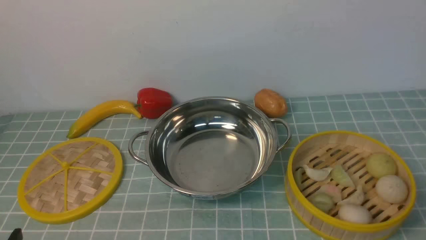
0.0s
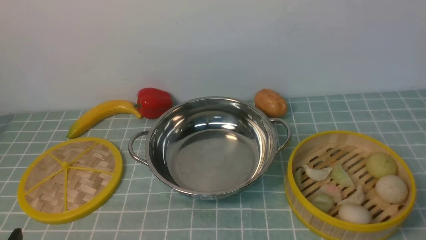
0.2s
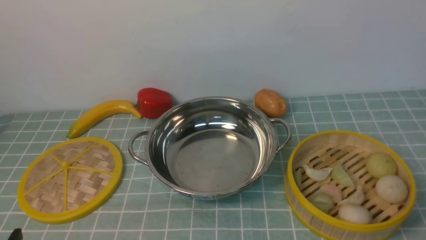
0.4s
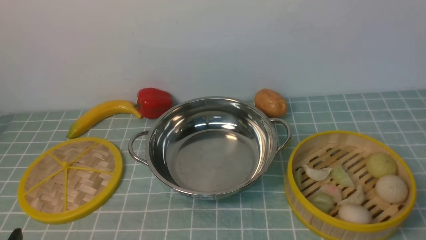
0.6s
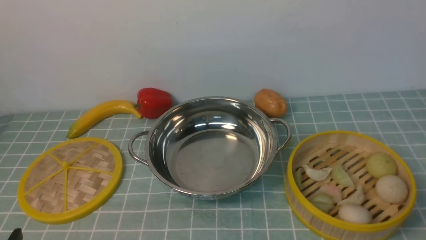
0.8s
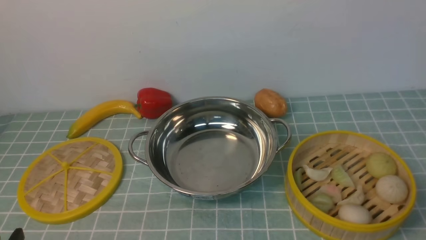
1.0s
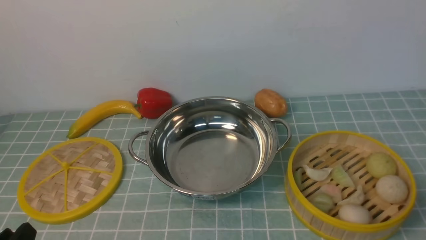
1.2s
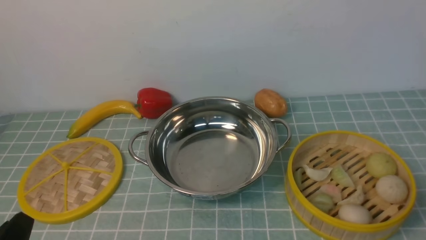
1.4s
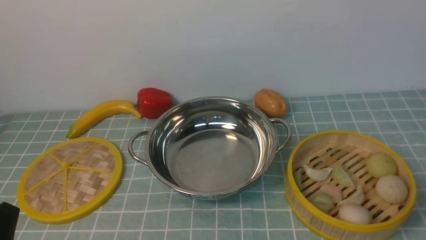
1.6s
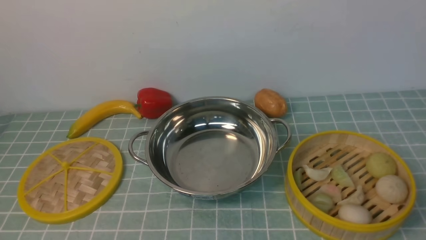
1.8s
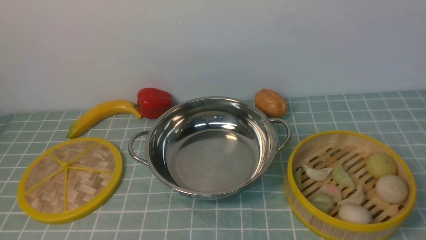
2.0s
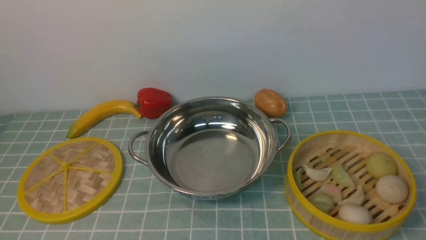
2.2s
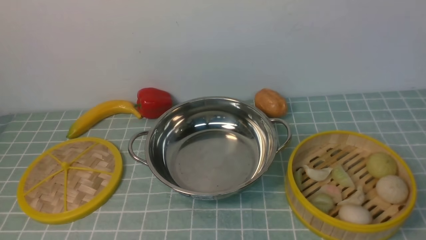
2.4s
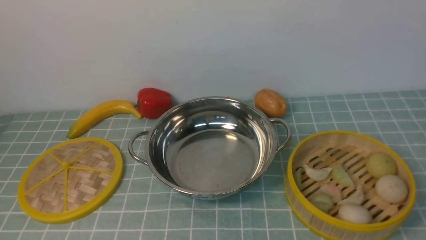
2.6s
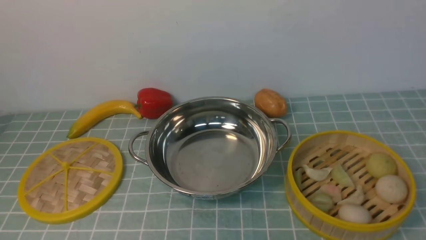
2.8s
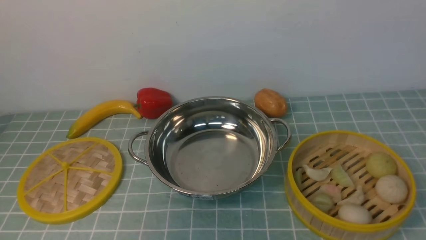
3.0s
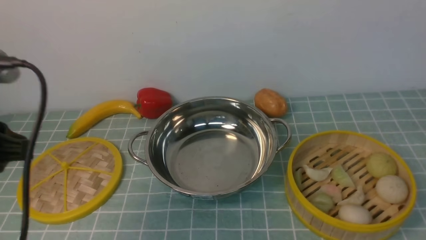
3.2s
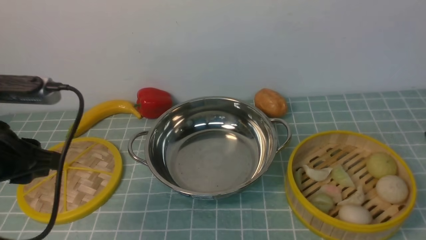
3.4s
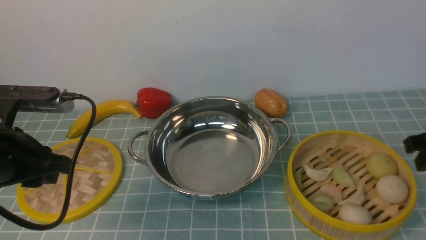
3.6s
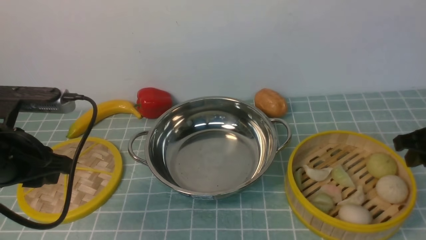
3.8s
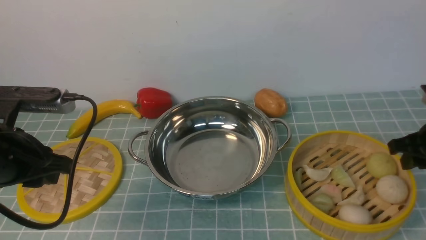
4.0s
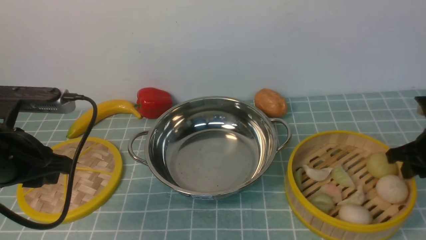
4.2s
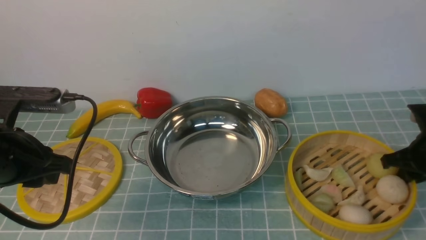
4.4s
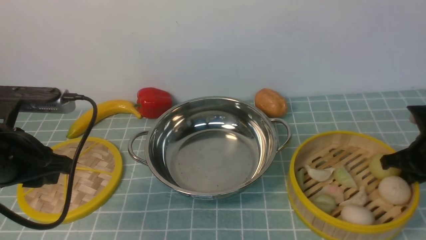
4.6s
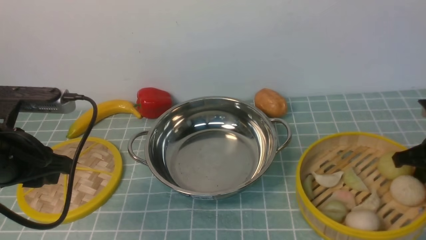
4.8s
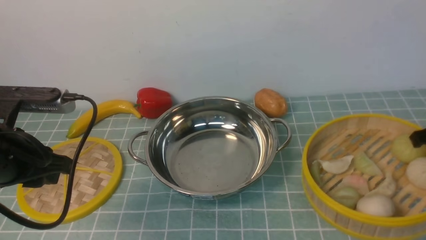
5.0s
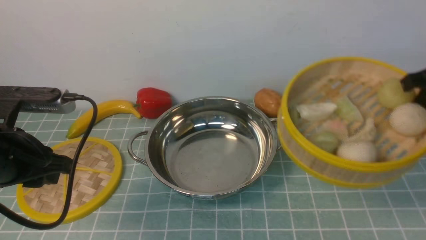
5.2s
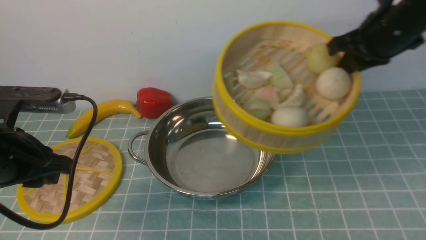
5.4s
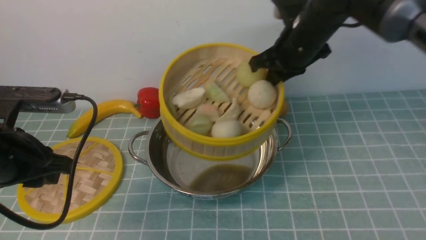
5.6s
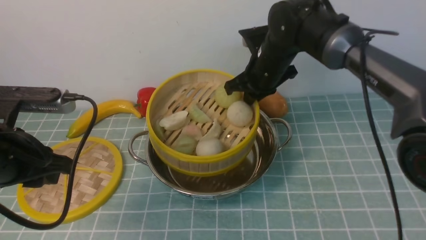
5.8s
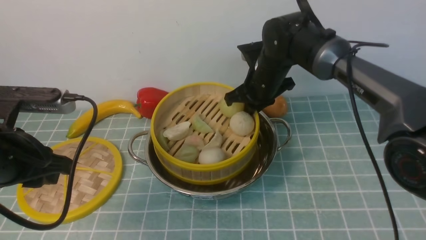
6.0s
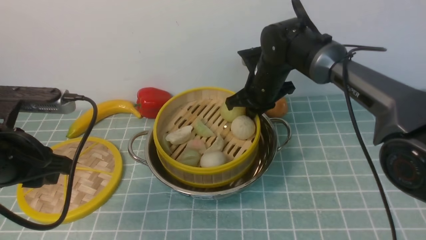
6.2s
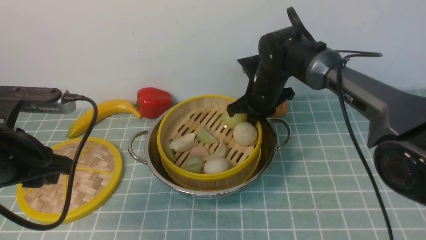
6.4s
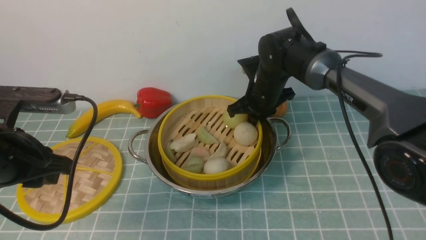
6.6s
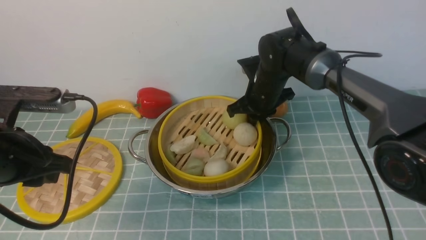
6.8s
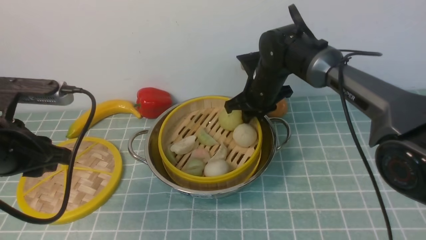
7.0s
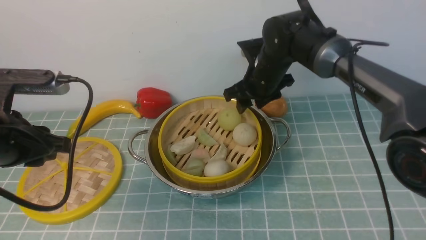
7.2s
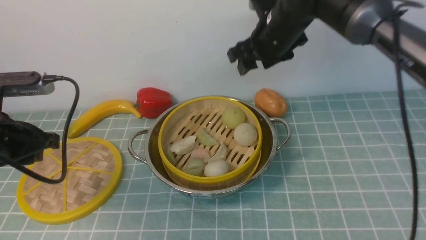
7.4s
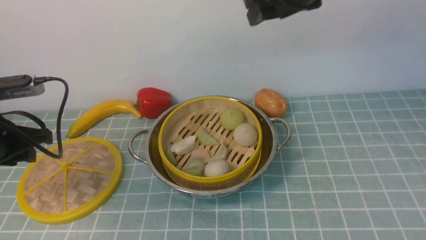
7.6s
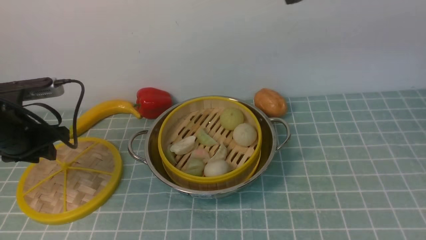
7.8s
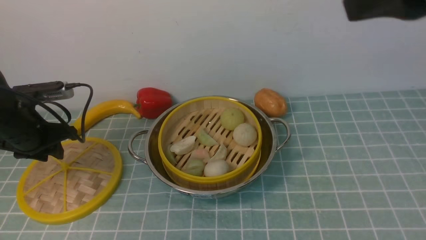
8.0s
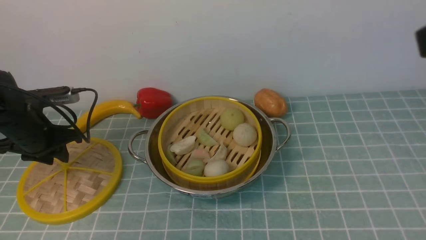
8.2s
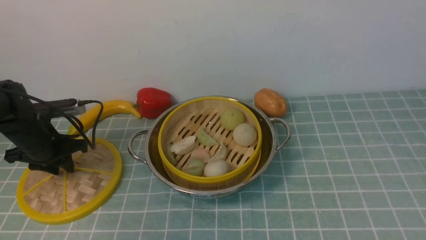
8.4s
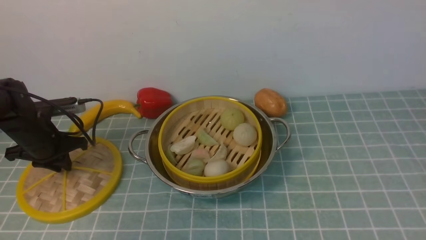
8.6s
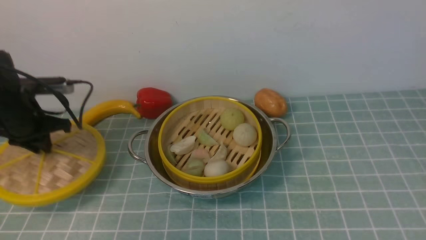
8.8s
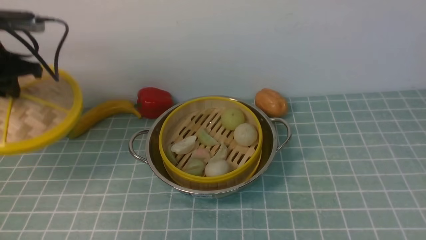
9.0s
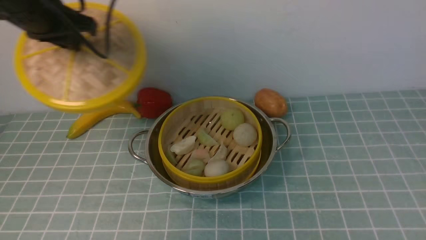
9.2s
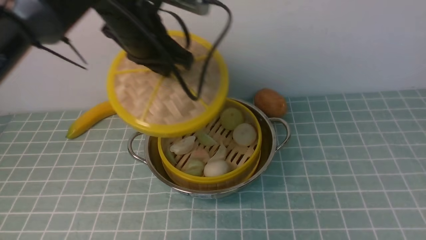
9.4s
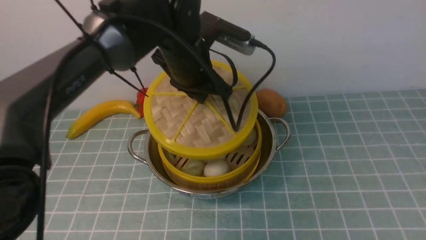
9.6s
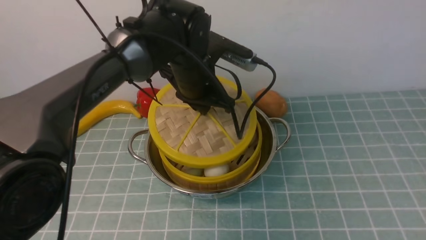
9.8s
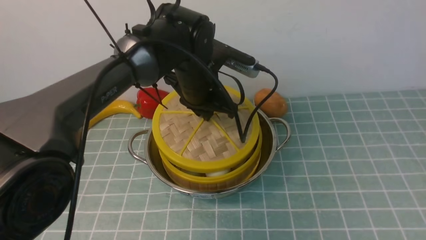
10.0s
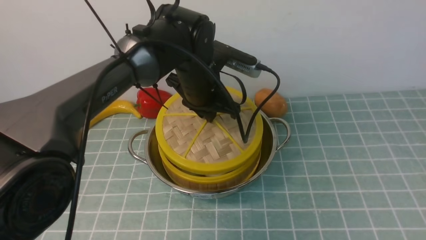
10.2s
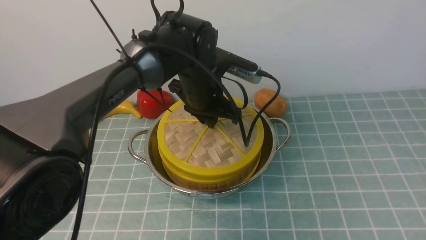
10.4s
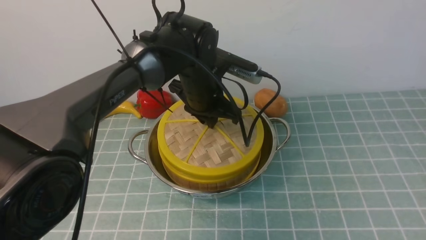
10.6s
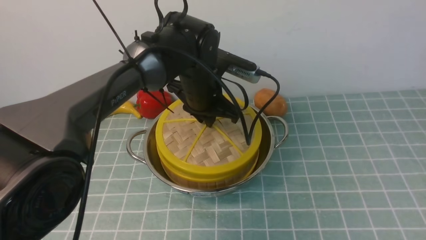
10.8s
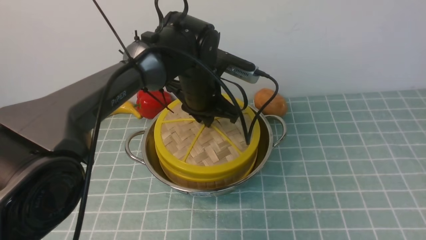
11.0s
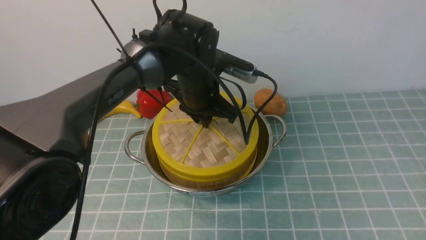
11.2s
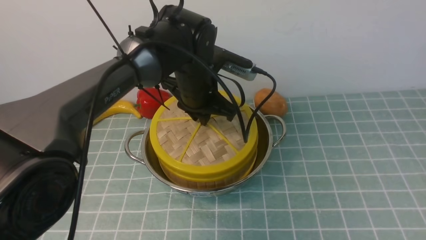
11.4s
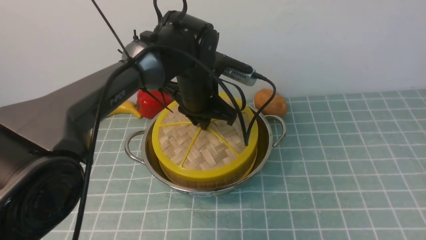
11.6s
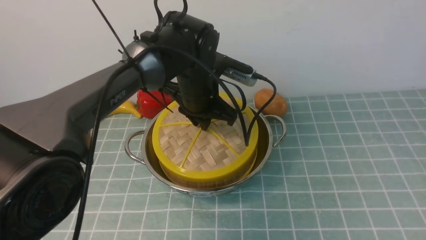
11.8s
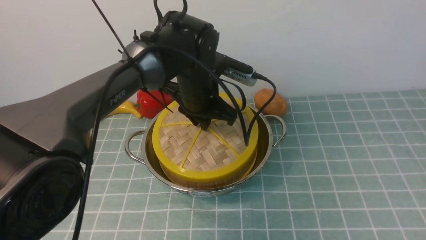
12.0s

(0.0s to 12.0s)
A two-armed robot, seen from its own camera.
Task of the whole recording: place the steamer in the pot on the blue tablecloth, and put the lid on the steamer.
Step, 0.0s - 5.0s: use the right arm to lift the steamer closest to it.
Step, 5.2s - 7.8s: use the right arm to put the steamer into the iron steamer pot in the middle.
Step, 8.0s - 8.8s: use the left arm to lift the lid of the steamer.
1.6s - 3.0s: The left gripper goes approximately 20 cm upward.
3.0s - 4.4s: The left gripper heads forward and downward, covering some 20 cm. Meanwhile the right gripper is displaced downward and forward by about 30 cm.
4.4s - 6.0s: The right gripper heads to the left and forward, covering roughly 30 cm.
6.0s - 7.6s: The right gripper moves upward, about 15 cm, and opens. Meanwhile the left gripper travels forward by roughly 5 cm.
7.6s - 9.0s: The right gripper shifts approximately 35 cm backward and to the right. The left gripper goes about 10 cm forward, and moves some 10 cm downward and comes back.
9.0s - 10.4s: The left gripper is displaced to the right by about 30 cm.
10.4s - 12.0s: The grippers move only a little.

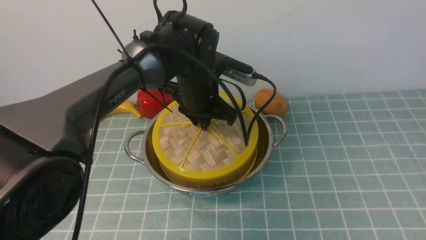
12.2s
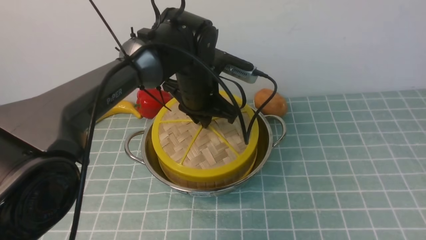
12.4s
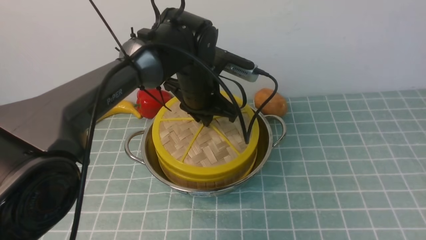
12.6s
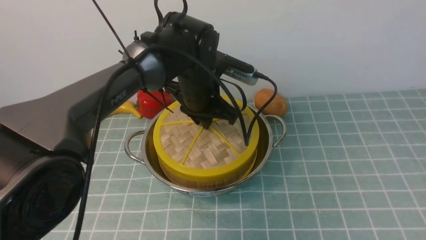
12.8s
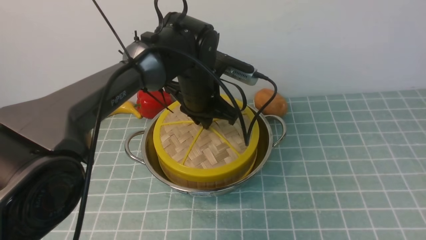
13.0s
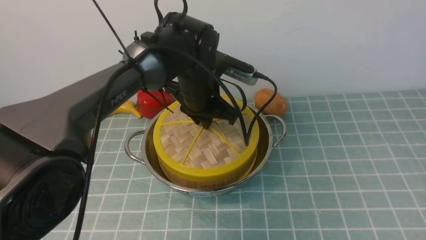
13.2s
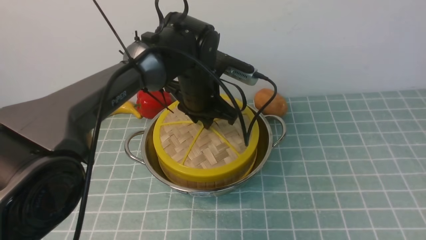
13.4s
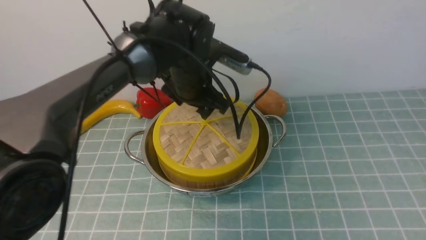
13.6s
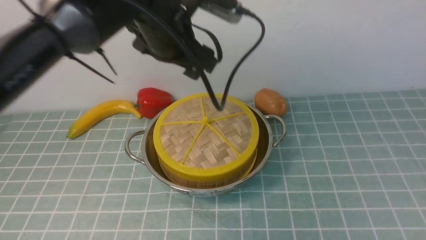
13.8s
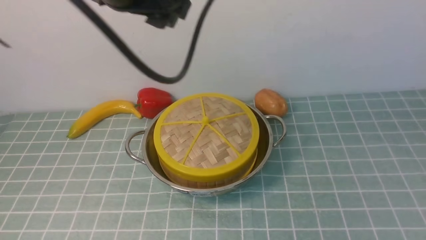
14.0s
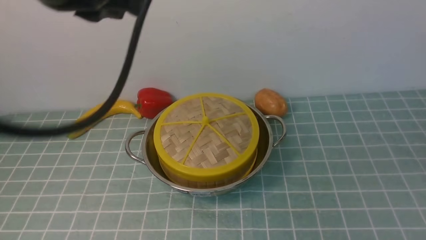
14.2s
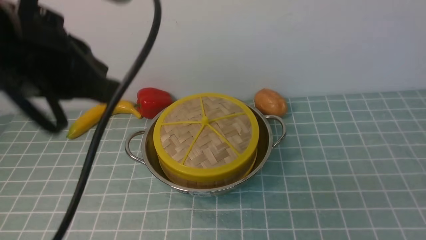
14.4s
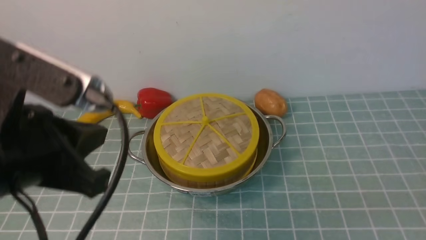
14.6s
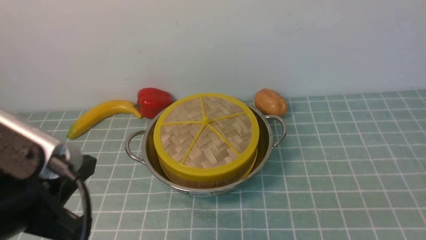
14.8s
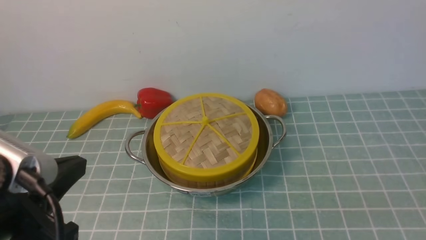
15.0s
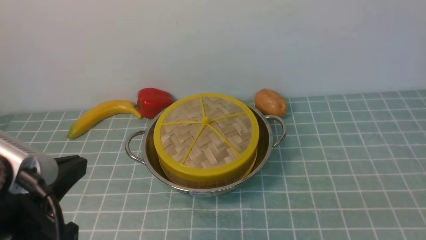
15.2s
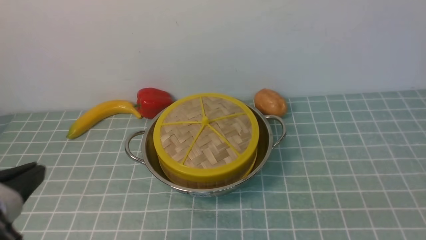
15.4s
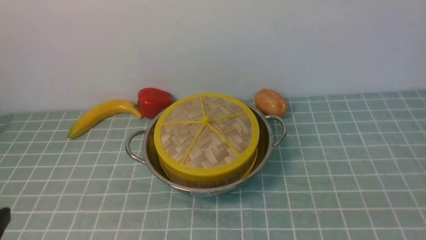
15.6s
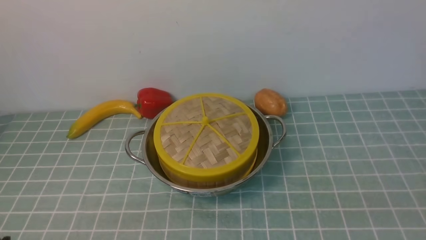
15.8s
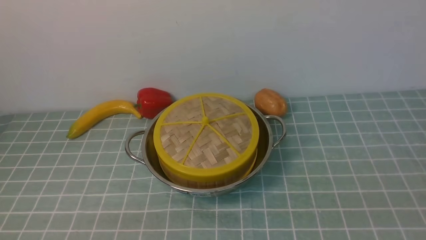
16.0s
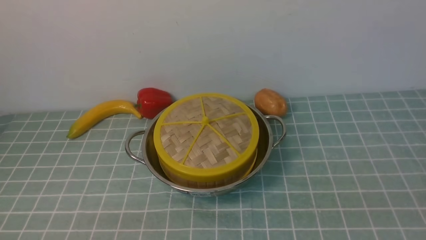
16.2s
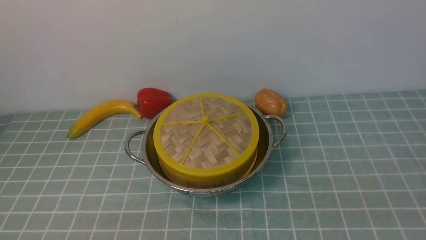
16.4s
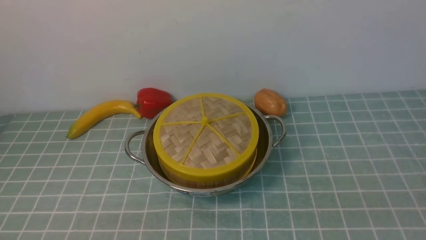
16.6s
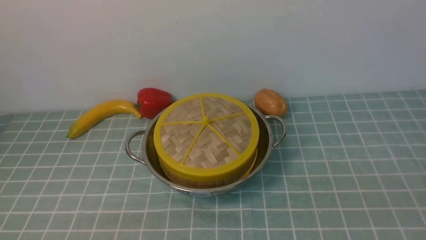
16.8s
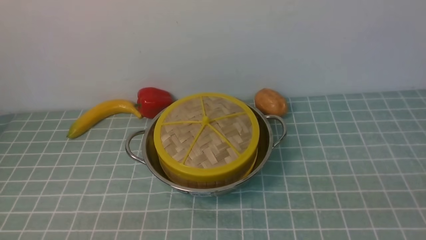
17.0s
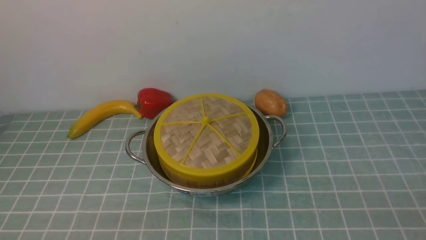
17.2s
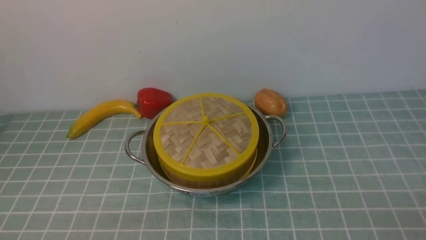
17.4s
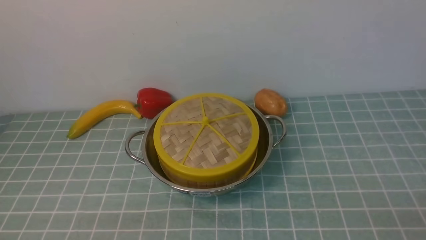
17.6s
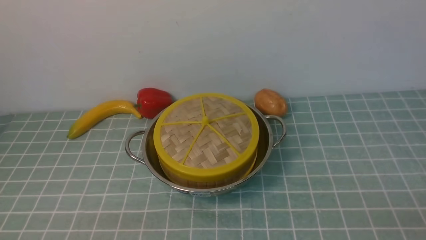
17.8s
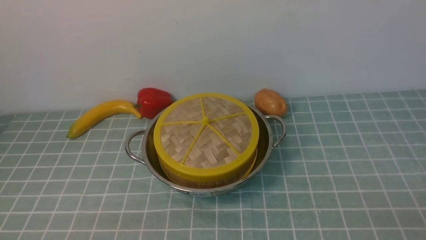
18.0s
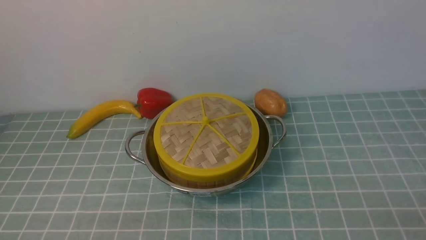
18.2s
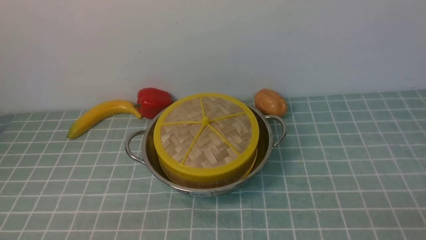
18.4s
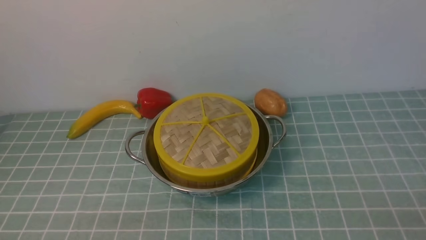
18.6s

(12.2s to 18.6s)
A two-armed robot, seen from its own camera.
Task of the whole recording: place the steamer in the pot on the blue tablecloth, and put the lid on the steamer.
12.2s - 13.8s: The left gripper goes roughly 10 cm upward, and opens.
13.8s - 15.4s: The right gripper is displaced downward by roughly 20 cm, and closes. The left gripper is displaced backward and to the left by about 35 cm, and closes up.
15.4s - 17.0s: The left gripper heads downward, covering approximately 15 cm.
